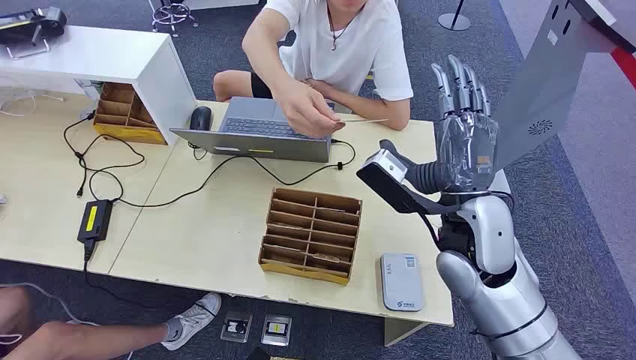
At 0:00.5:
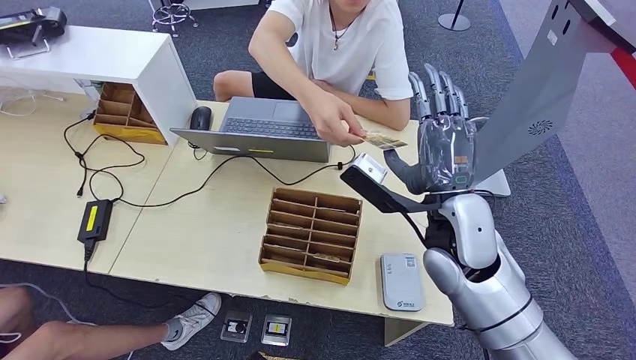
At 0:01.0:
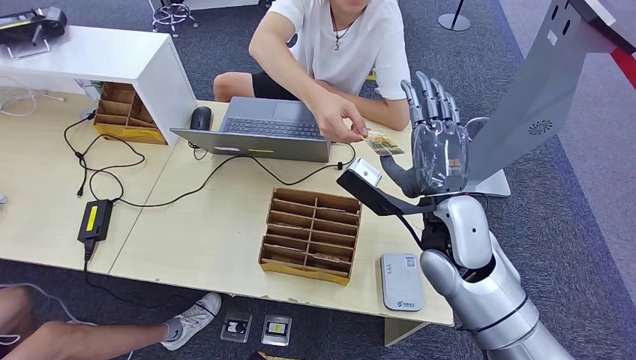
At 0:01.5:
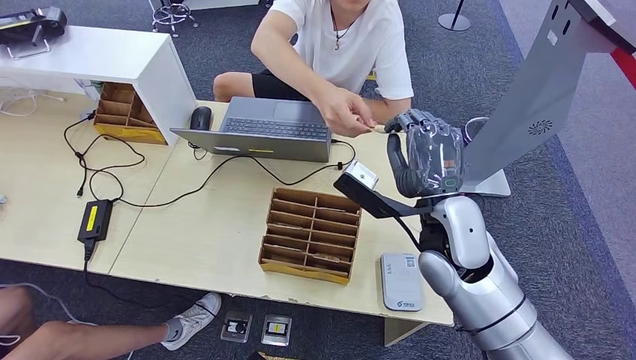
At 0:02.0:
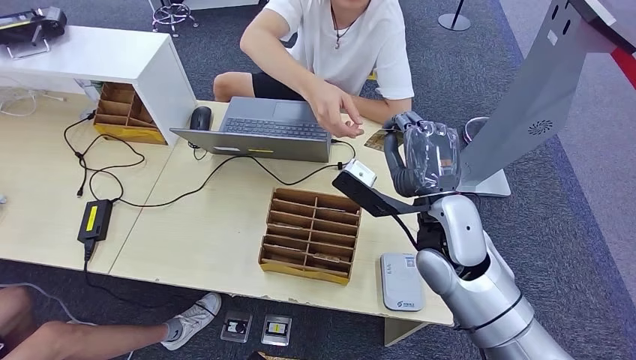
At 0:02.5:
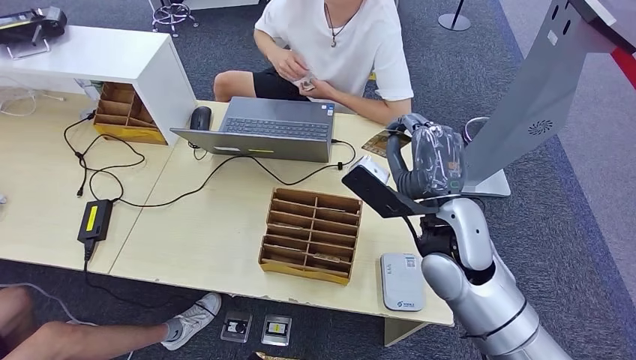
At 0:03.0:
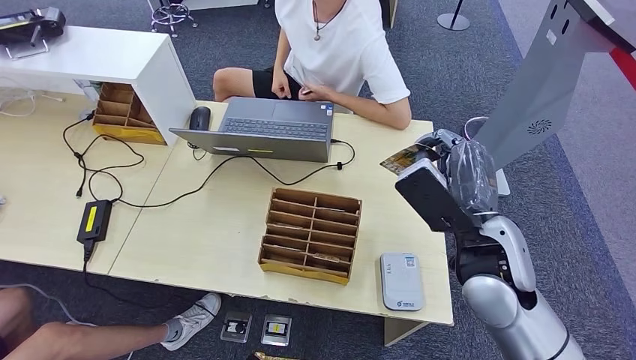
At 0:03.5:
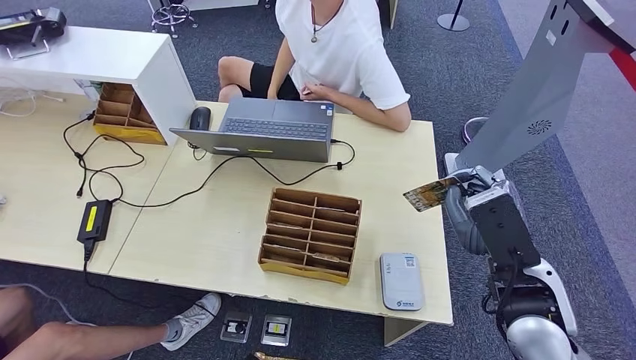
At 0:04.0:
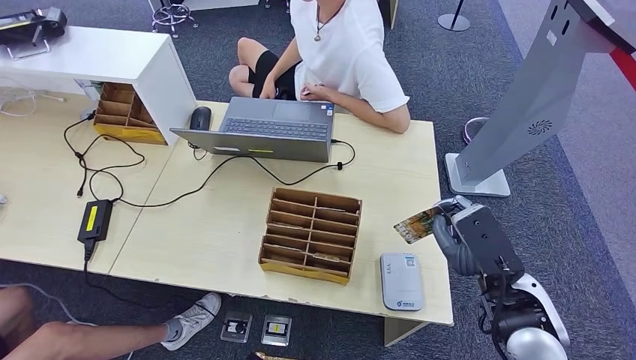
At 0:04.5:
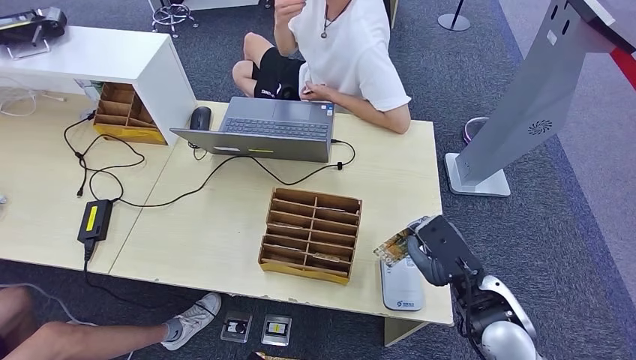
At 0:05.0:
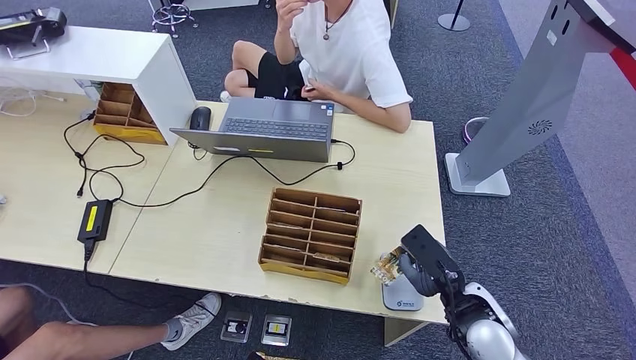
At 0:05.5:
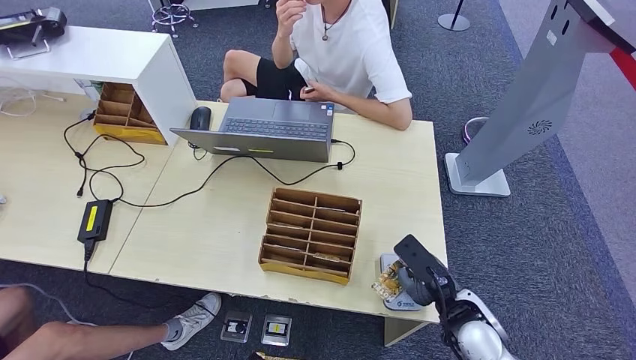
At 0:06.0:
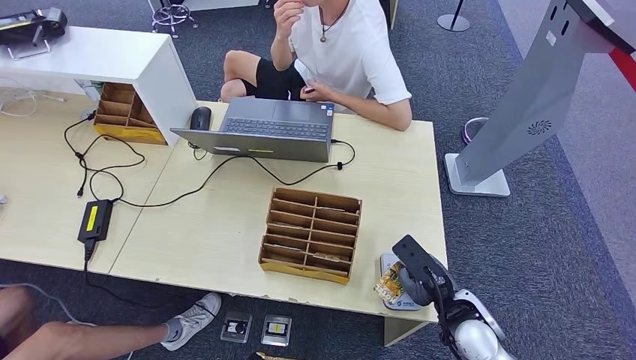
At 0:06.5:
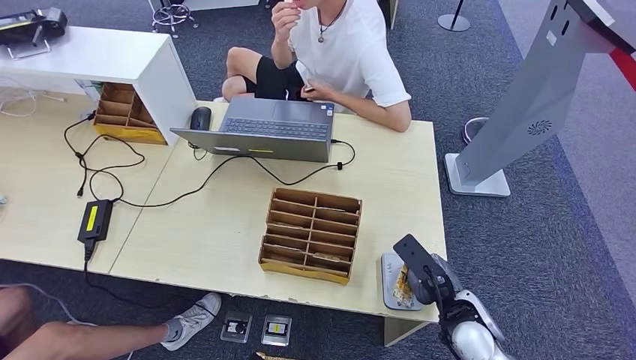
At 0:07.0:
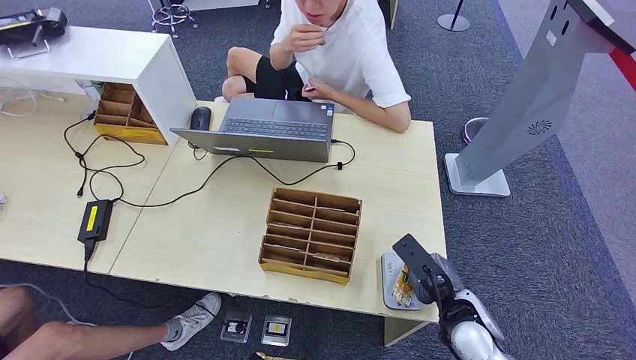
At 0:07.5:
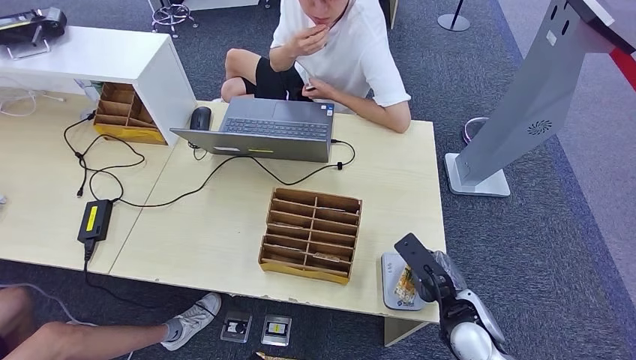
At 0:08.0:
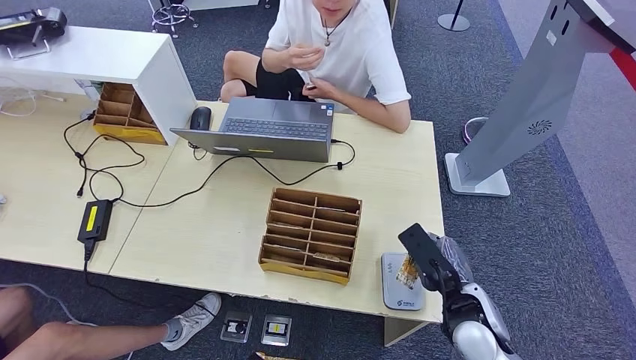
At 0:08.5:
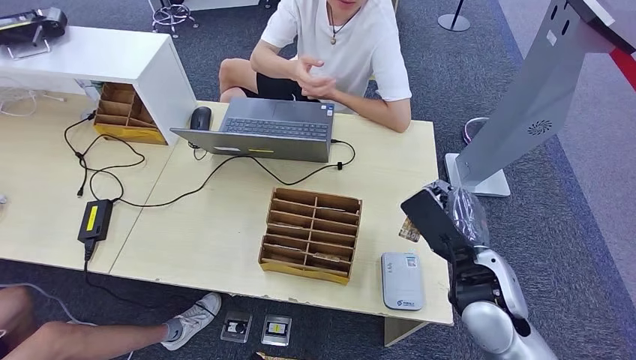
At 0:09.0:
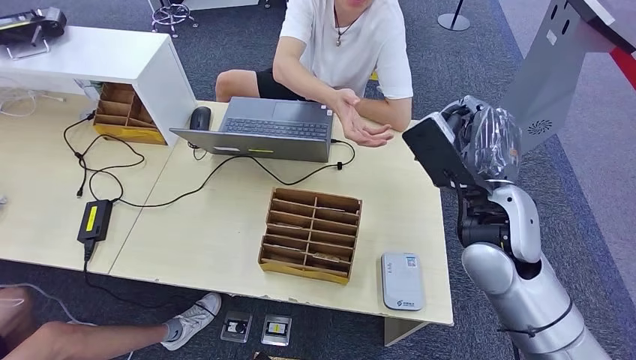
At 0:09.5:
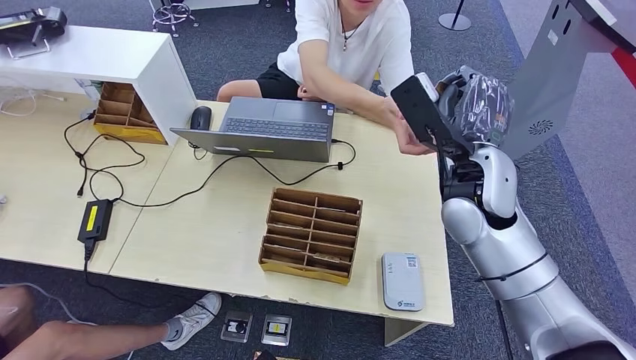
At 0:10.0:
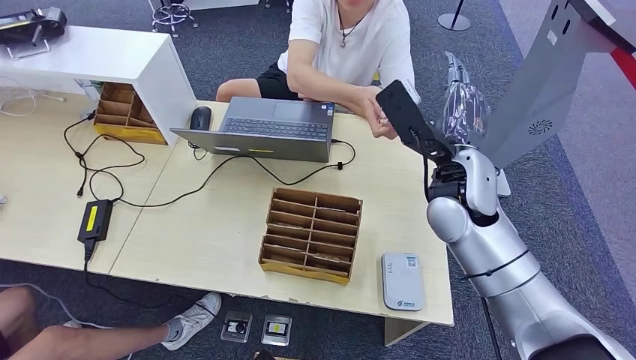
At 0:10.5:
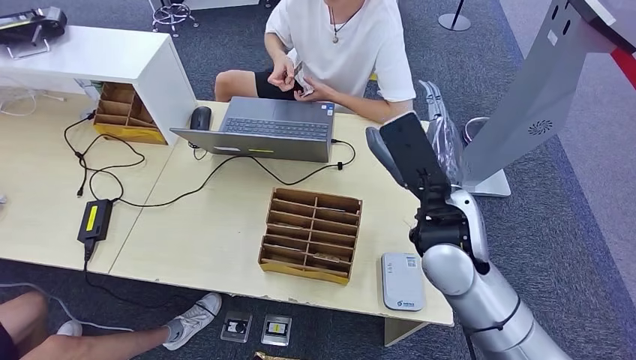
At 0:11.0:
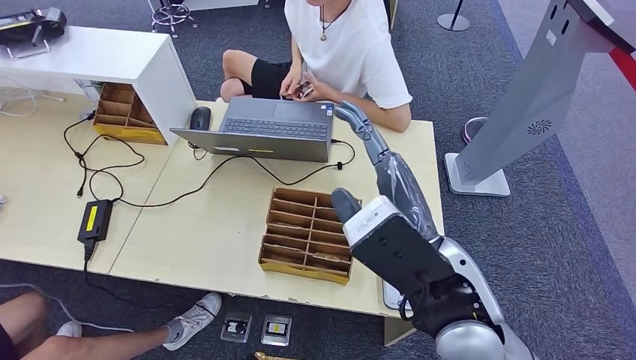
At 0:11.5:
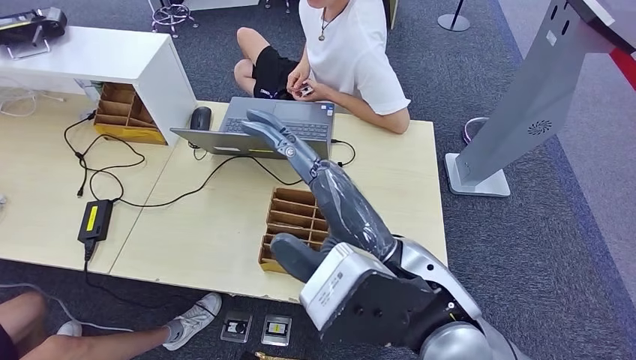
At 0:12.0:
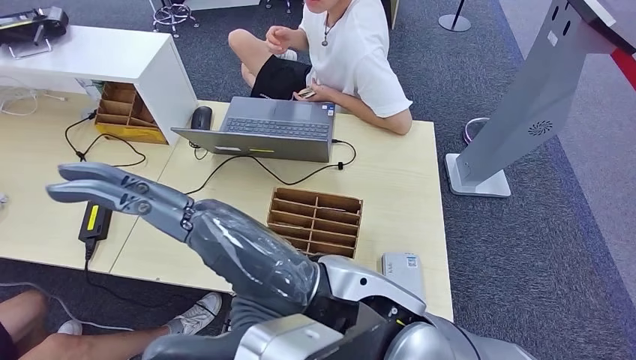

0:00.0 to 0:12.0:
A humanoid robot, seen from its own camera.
Step, 0:00.0 to 0:04.0: Take the ID card from the person's hand.
Step, 0:04.5 to 0:09.0: Place the ID card on the card reader.
Step, 0:09.5 to 0:11.5: Hand the ID card to the person.
0:02.0 to 0:04.0: The right hand travels to the right and backward by roughly 15 cm.
0:04.0 to 0:06.0: The right hand is displaced downward by about 10 cm.
0:06.0 to 0:08.0: The hands make only small movements.
0:08.0 to 0:10.0: The right hand is displaced upward, forward and to the left by roughly 25 cm.

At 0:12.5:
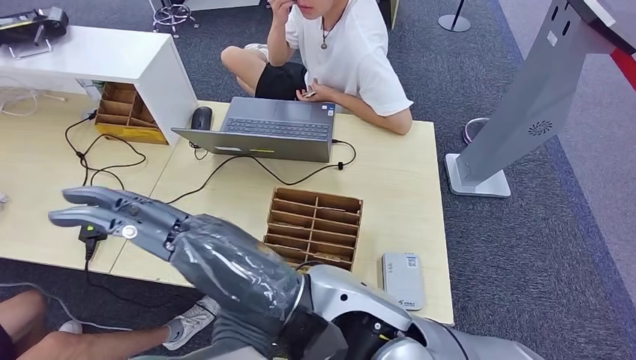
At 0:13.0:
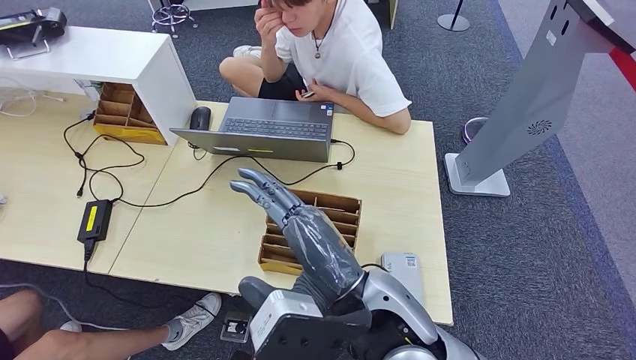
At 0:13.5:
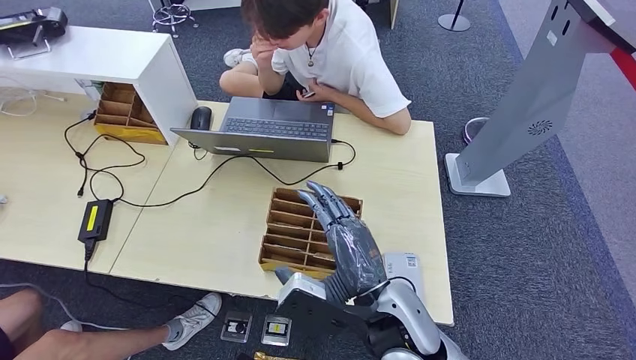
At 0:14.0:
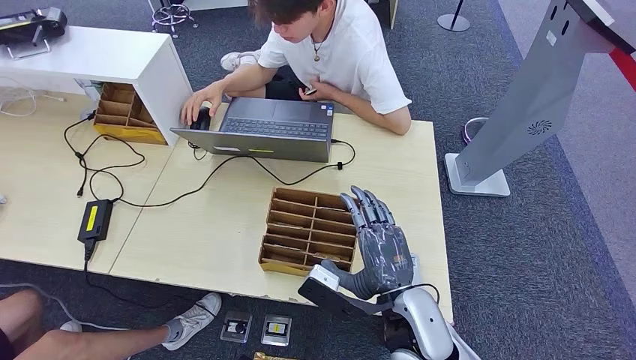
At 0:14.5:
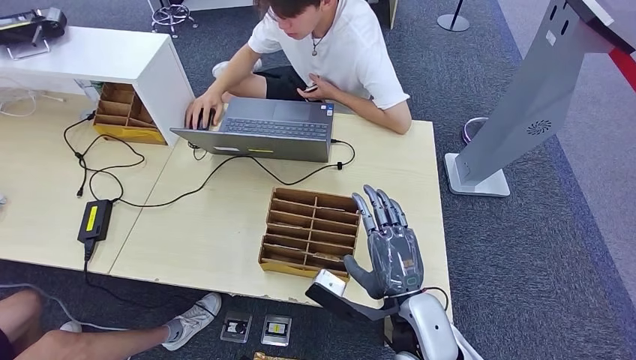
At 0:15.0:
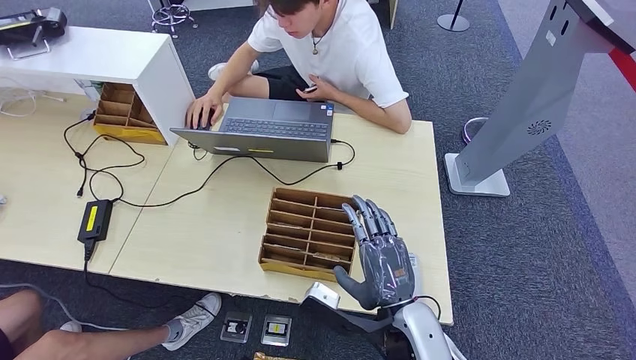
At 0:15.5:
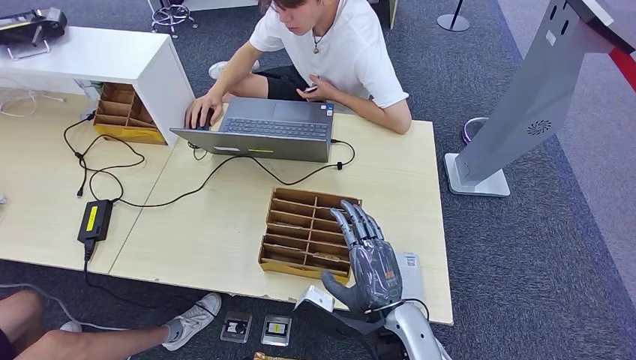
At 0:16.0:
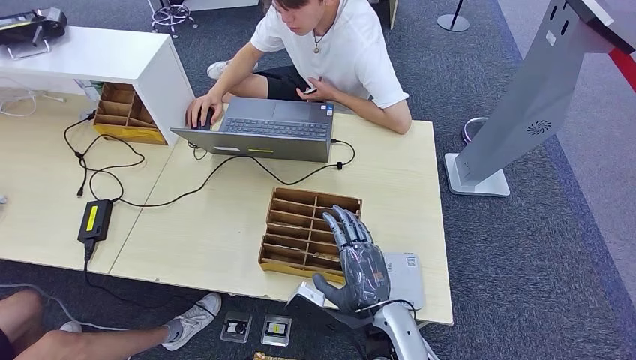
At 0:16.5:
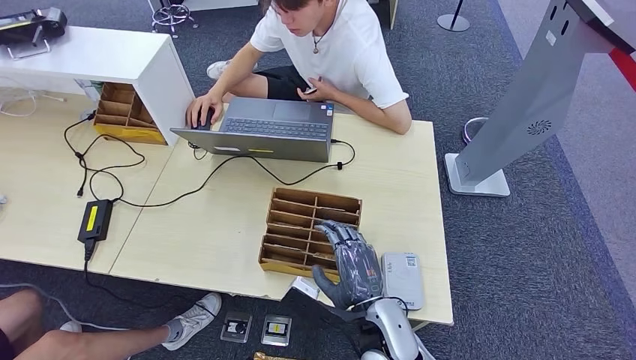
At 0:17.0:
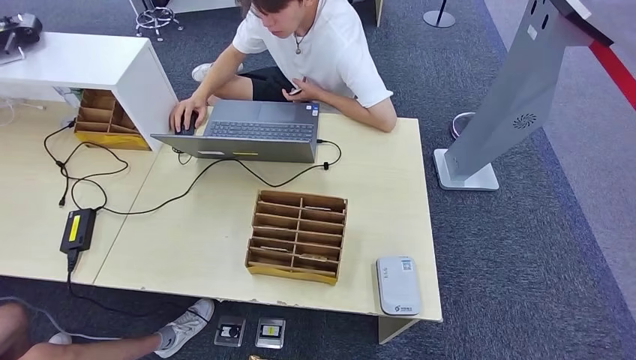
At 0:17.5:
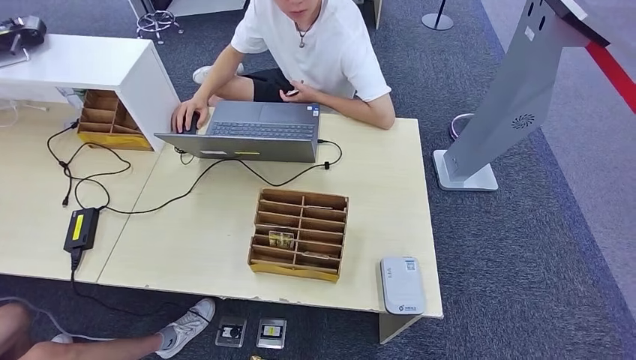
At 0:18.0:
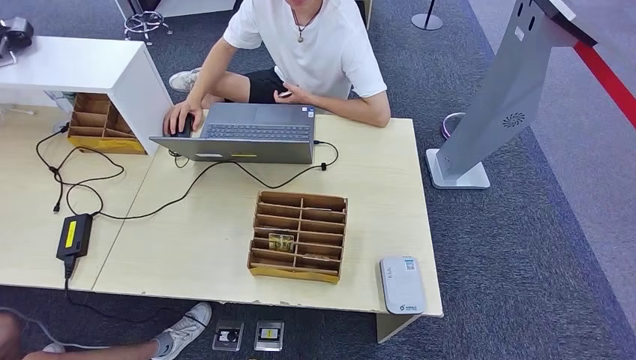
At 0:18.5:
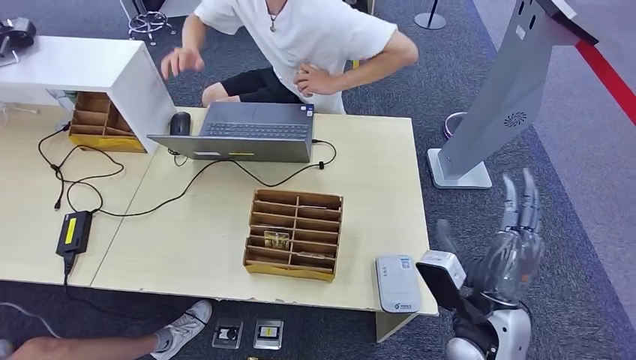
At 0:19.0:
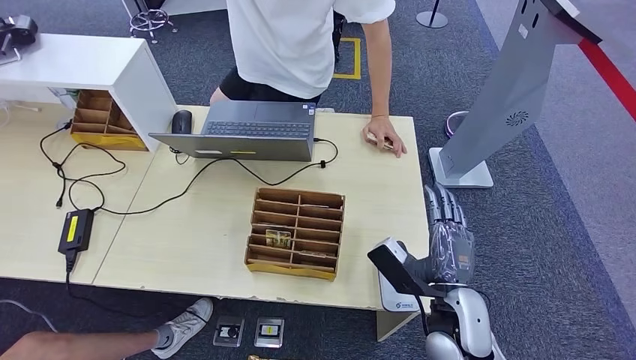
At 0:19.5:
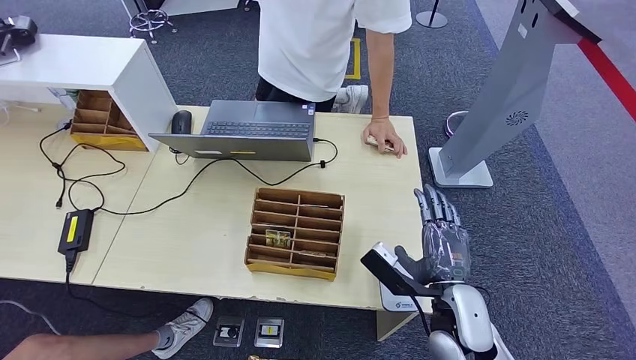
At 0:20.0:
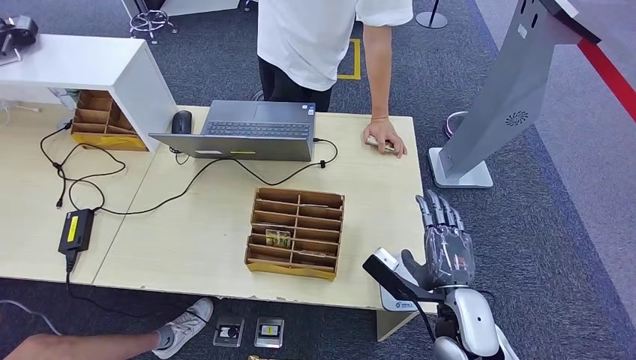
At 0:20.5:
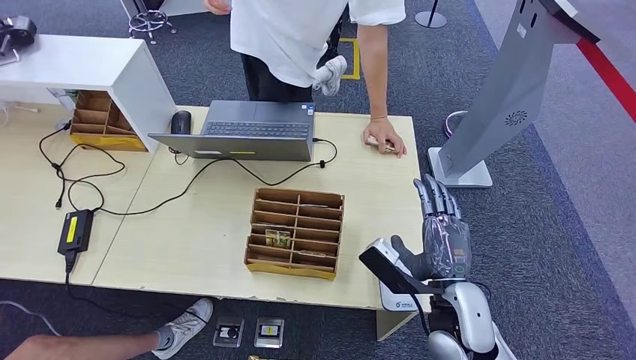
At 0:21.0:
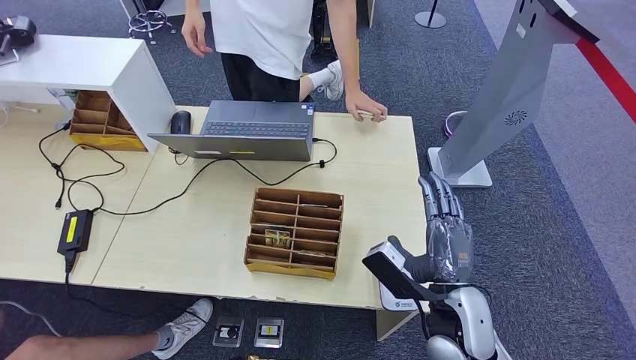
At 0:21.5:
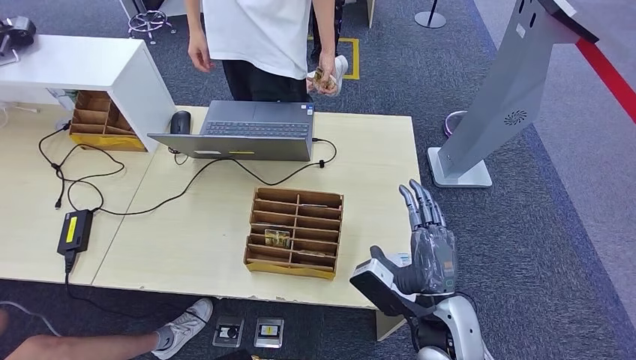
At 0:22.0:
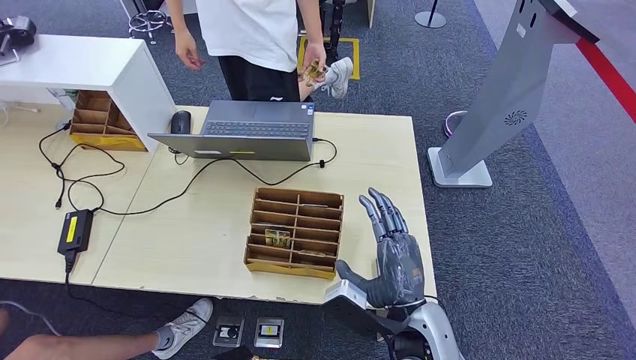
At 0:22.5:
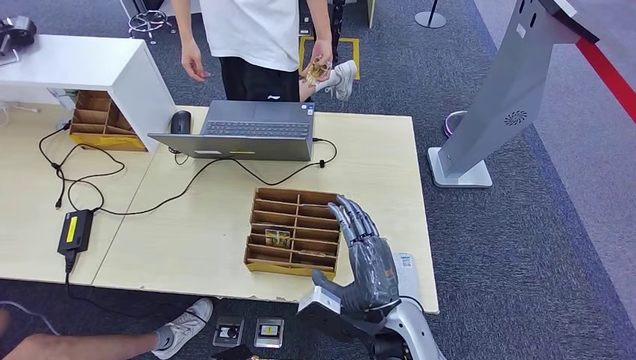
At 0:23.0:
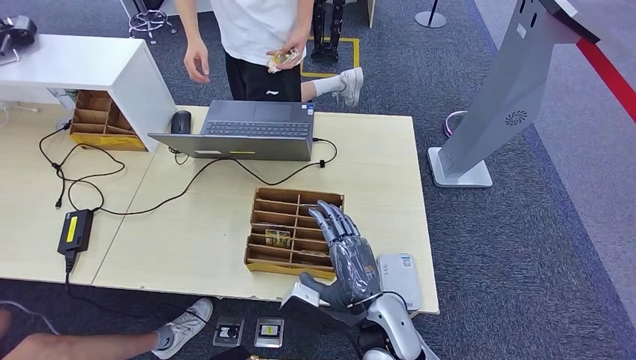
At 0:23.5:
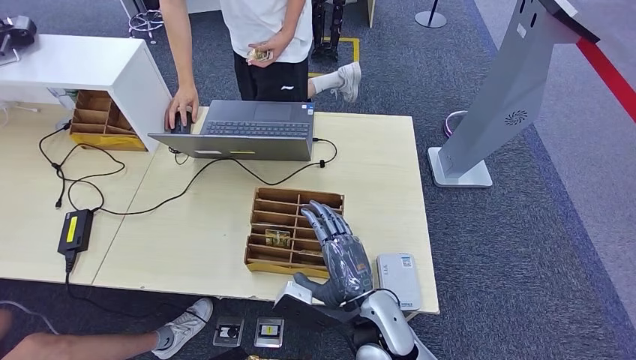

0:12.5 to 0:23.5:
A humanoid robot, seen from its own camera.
0:14.5 to 0:16.0: The hands move only a little.
0:20.0 to 0:21.5: The left hand travels forward and to the right by roughly 10 cm.
0:21.5 to 0:23.5: The right hand shifts roughly 10 cm to the left.
